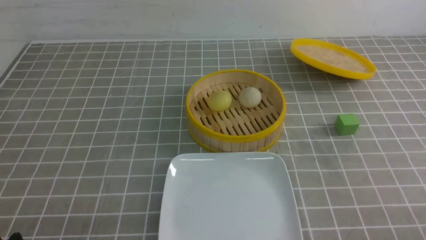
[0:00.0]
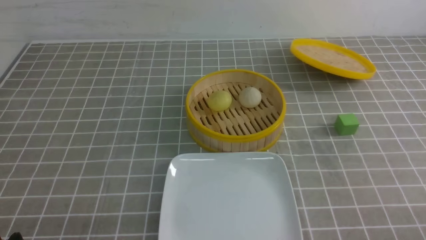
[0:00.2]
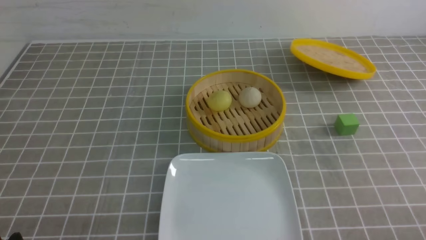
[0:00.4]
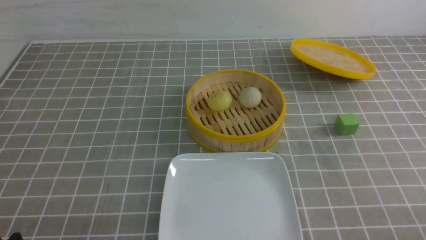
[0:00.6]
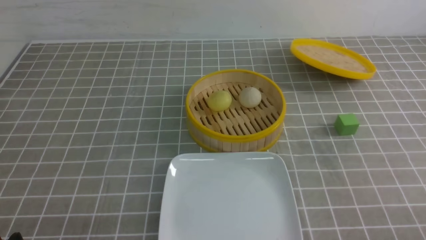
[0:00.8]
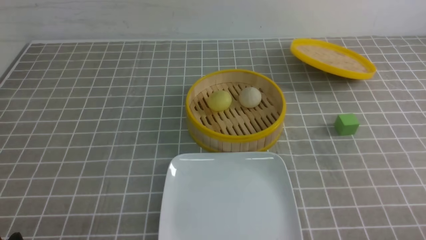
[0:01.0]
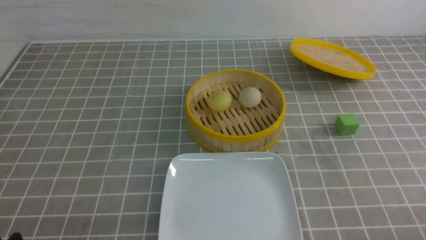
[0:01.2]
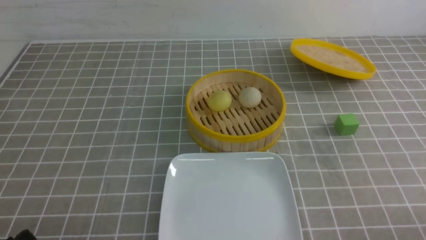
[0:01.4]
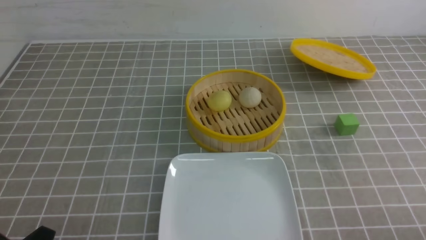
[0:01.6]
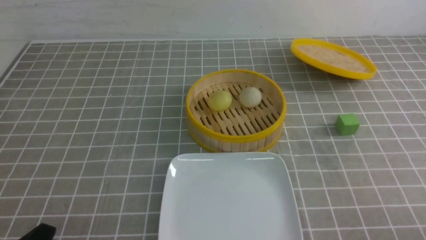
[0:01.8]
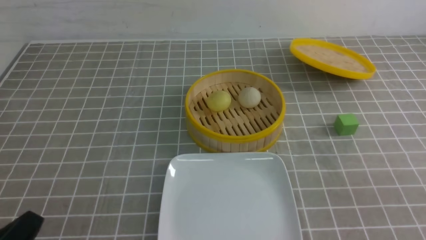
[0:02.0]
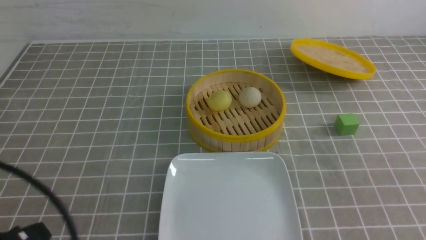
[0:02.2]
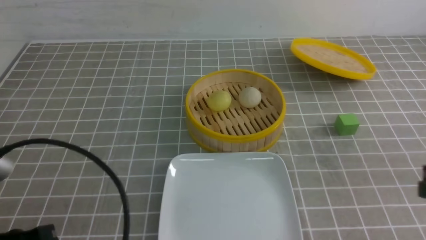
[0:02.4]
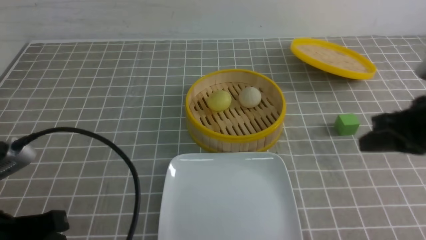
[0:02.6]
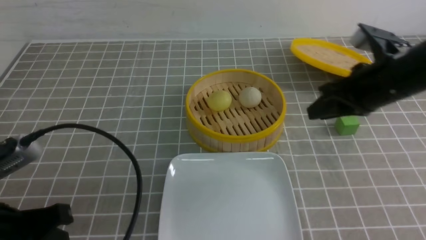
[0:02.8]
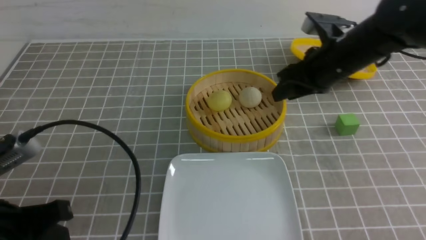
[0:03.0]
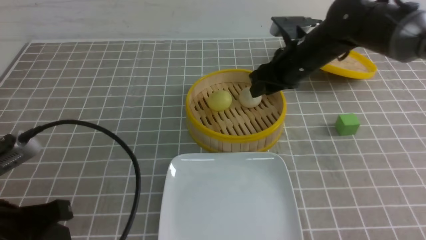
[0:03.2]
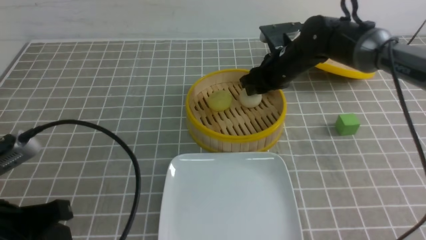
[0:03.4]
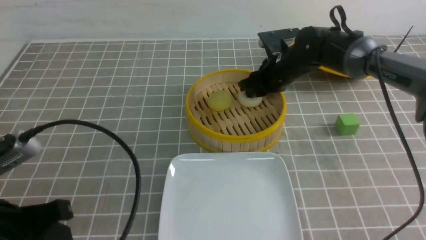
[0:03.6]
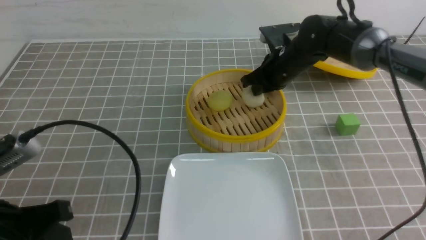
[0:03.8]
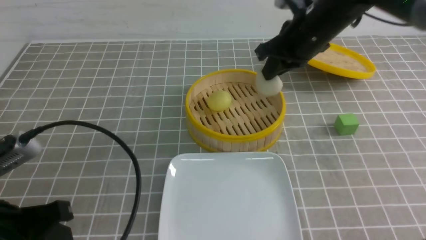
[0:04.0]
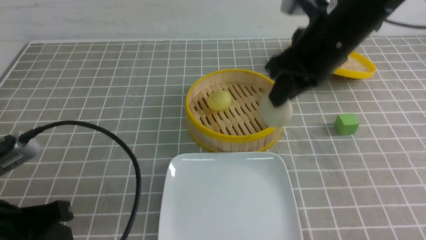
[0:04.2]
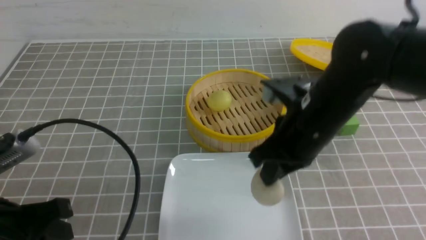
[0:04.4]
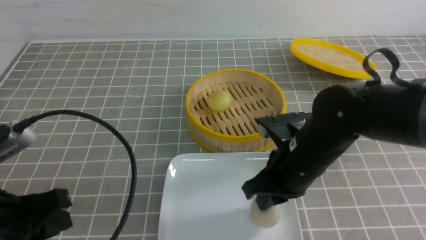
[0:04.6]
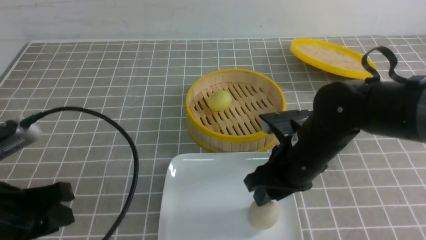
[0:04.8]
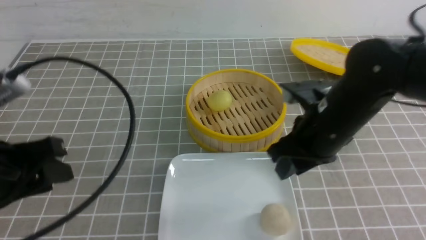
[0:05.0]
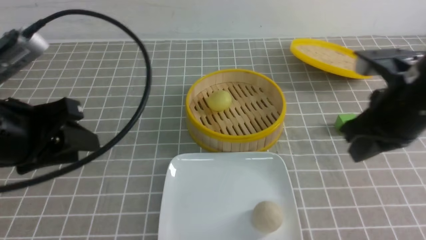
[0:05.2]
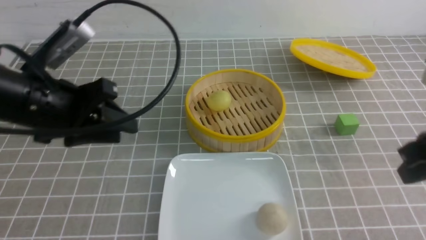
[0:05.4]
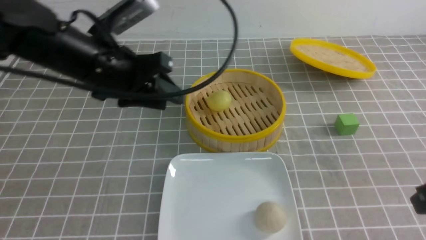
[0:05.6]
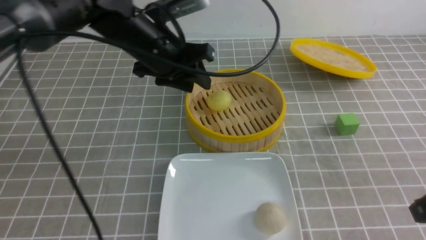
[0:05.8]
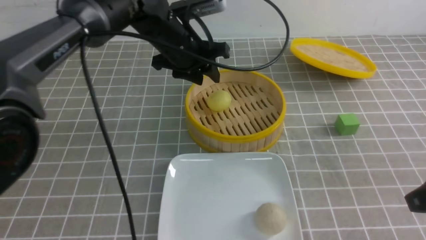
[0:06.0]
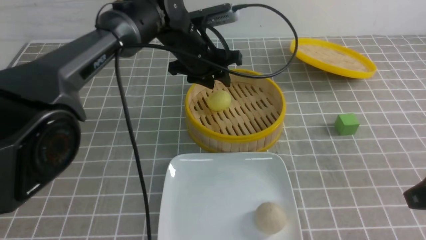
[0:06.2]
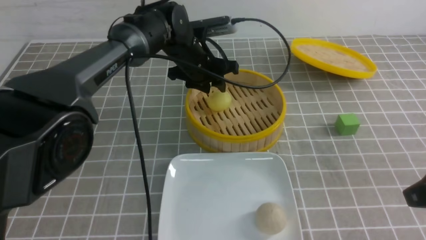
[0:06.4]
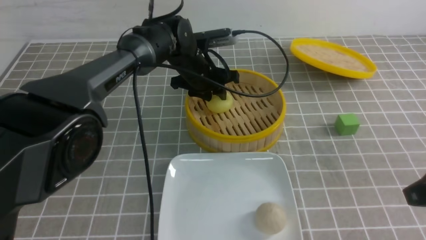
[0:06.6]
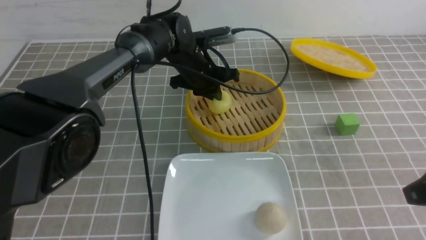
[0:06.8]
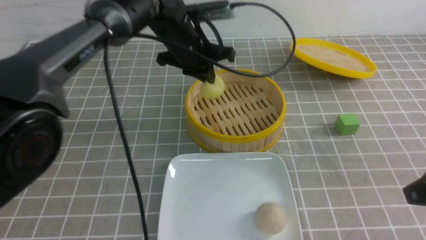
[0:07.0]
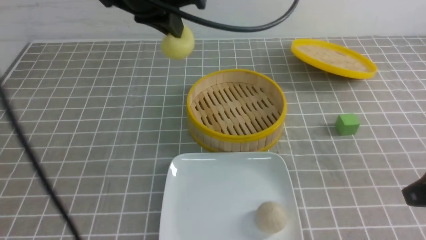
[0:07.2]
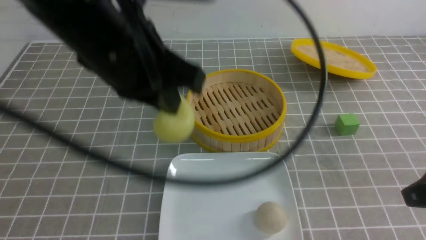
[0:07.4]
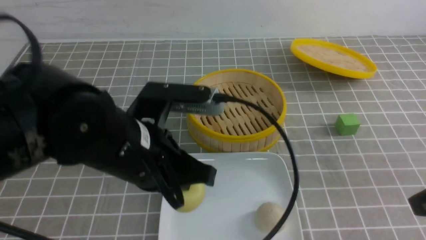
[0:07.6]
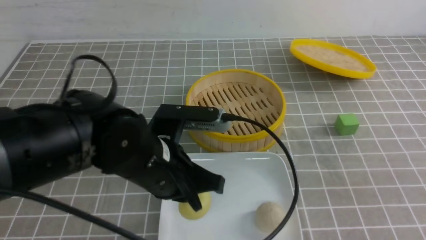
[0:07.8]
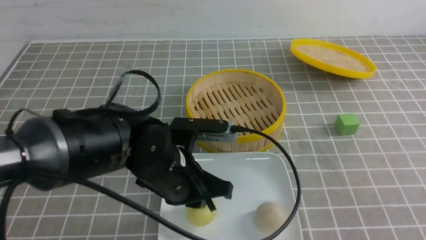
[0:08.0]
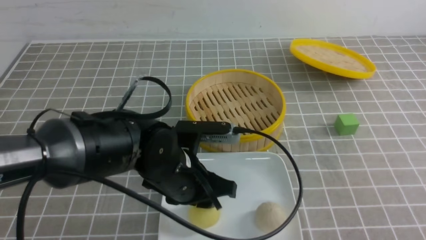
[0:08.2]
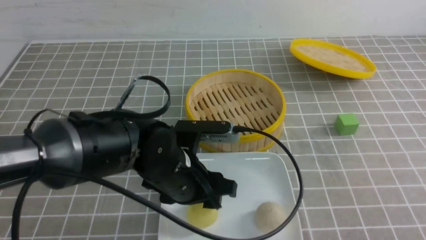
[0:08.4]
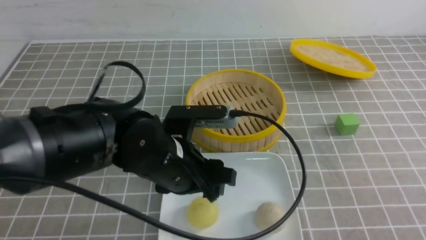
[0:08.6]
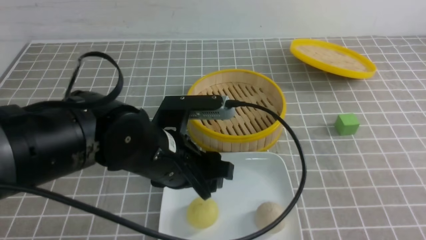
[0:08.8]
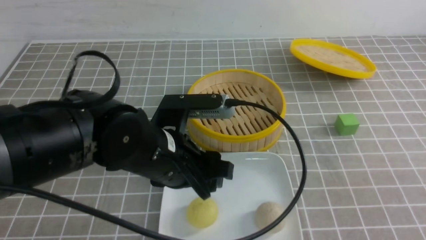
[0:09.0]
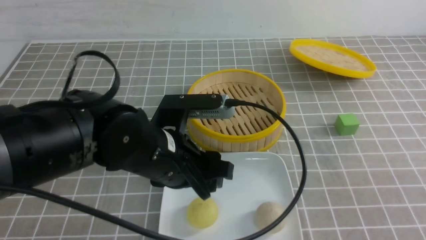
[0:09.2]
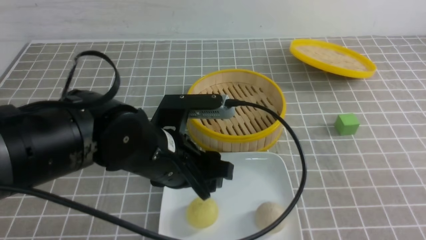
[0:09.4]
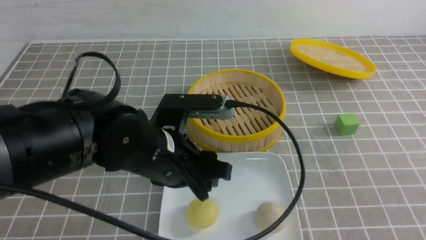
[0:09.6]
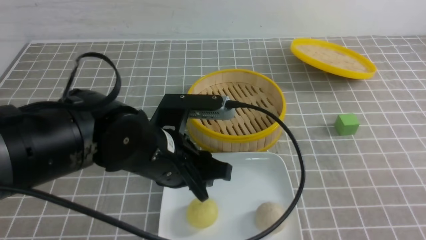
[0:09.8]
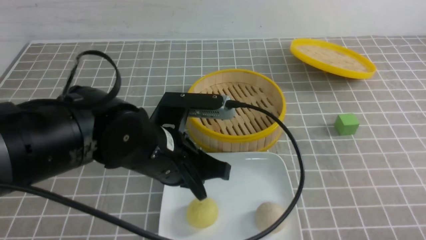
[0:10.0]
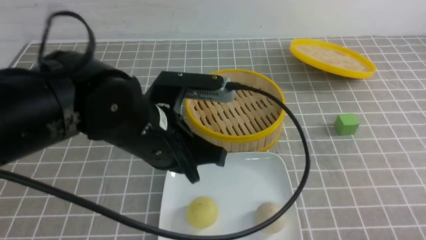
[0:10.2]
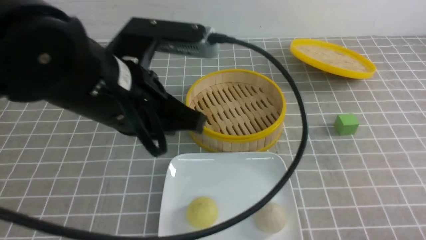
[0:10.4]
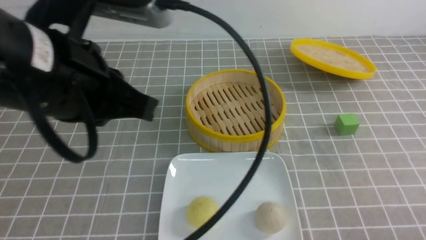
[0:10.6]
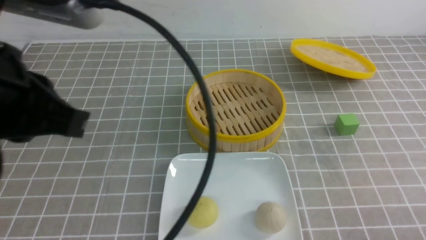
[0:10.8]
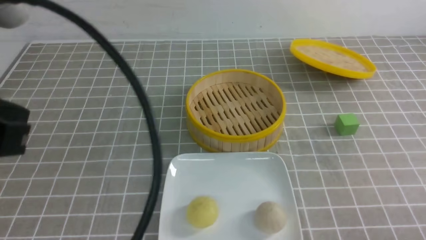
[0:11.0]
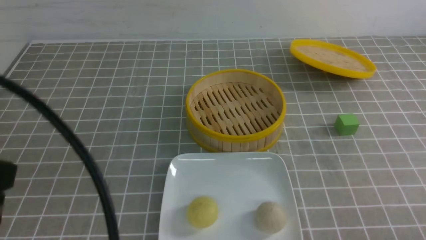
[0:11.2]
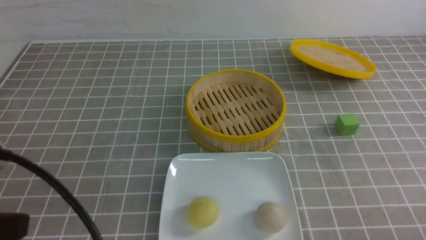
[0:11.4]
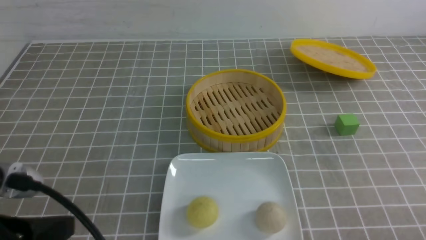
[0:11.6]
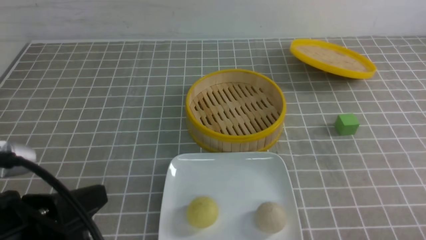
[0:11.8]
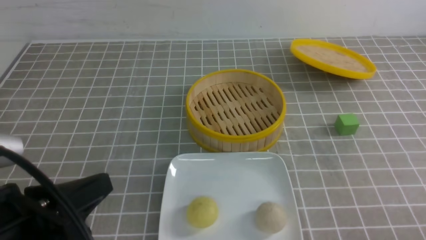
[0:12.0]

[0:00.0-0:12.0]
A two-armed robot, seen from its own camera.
Step, 0:00.0 to 0:03.8: use the right arm to grab the steamed stuffed bun that is closest to it.
Step, 0:04.0 to 0:04.8: use the right arm to put the steamed stuffed bun into the plate.
Step, 0:05.0 to 0:06.8: use the left arm to grab the steamed stuffed bun that is closest to it.
Step, 0:07.0 to 0:08.2: use the left arm to put the steamed stuffed bun into the plate.
0:01.6 to 0:03.0: The left gripper goes roughly 10 cm upward and forward, and closes; the right gripper shifts roughly 35 cm forward and to the left, and closes, then opens again.
0:03.0 to 0:04.4: The right gripper travels backward and to the left by approximately 10 cm, and closes its fingers.
0:04.4 to 0:06.0: The right gripper goes some 20 cm to the right and backward, and opens and closes again, while the left gripper is displaced forward and to the right by approximately 35 cm.
0:06.0 to 0:07.6: The left gripper goes roughly 20 cm backward, and closes.
0:07.6 to 0:09.0: The right gripper goes about 10 cm backward. Meanwhile the left gripper opens.
0:09.0 to 0:10.4: The left gripper goes roughly 10 cm upward, and closes its fingers. The right gripper goes about 10 cm downward.
0:10.4 to 0:12.0: The left gripper goes some 15 cm backward, to the left and downward.

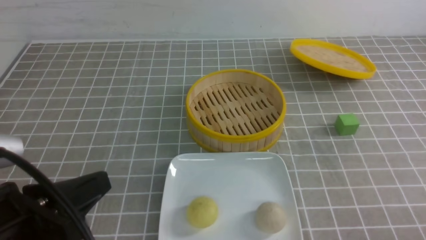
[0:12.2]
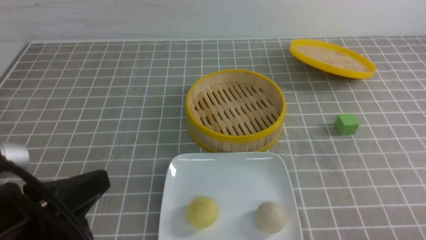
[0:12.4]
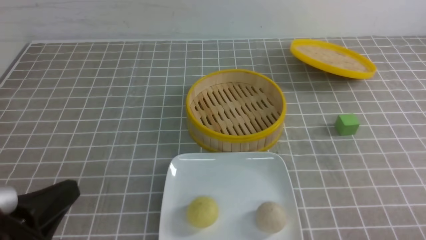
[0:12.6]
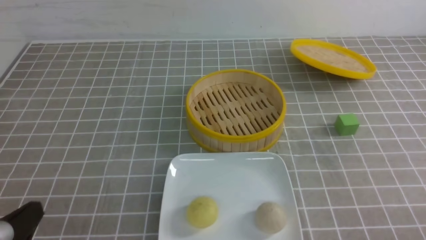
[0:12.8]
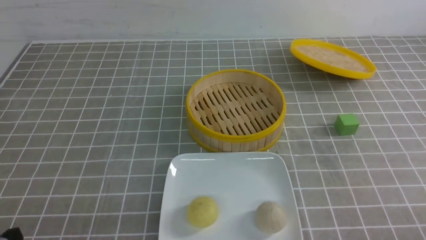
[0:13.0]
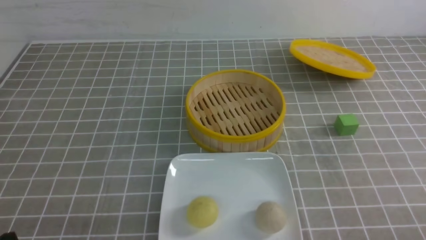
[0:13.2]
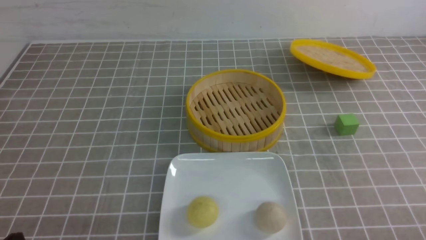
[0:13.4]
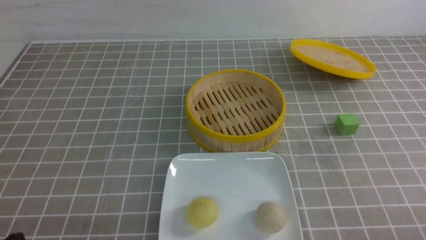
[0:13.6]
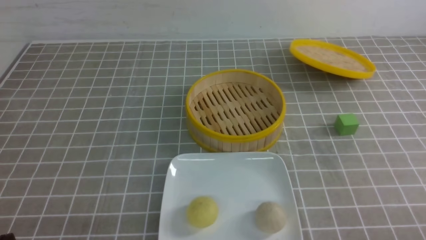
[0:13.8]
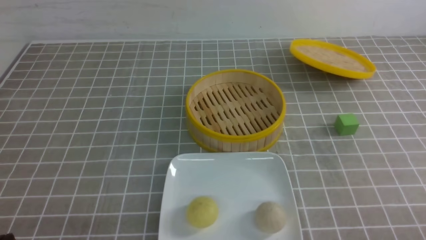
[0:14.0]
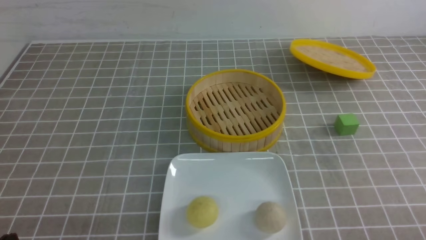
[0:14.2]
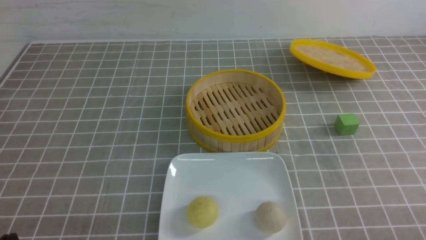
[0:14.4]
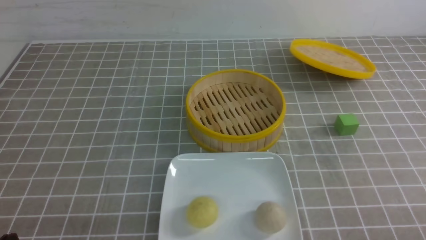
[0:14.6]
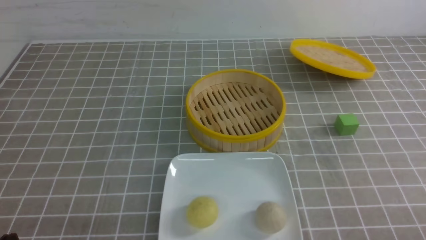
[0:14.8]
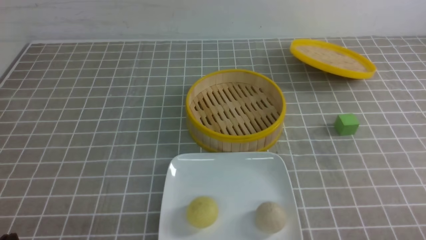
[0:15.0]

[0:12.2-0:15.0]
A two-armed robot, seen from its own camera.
0:12.2 to 0:13.6: The left gripper is displaced downward and to the left by about 15 cm.
0:13.6 to 0:15.0: Both grippers stay about where they are.
